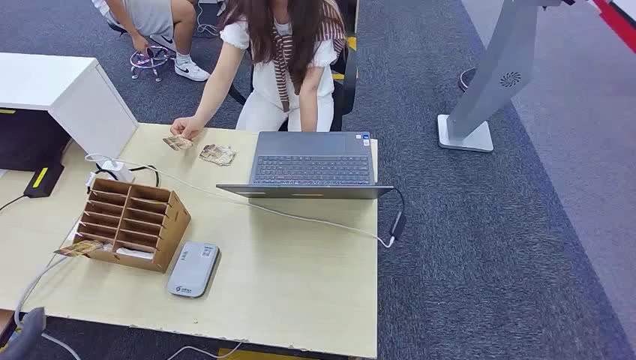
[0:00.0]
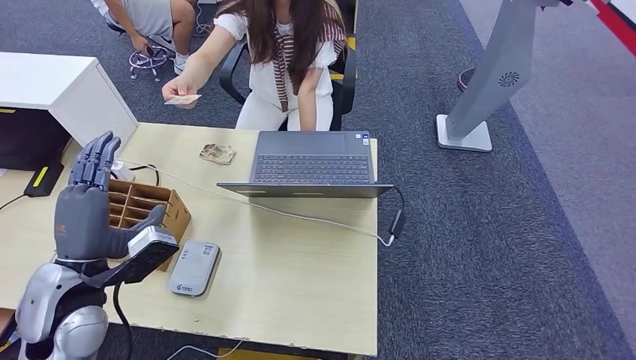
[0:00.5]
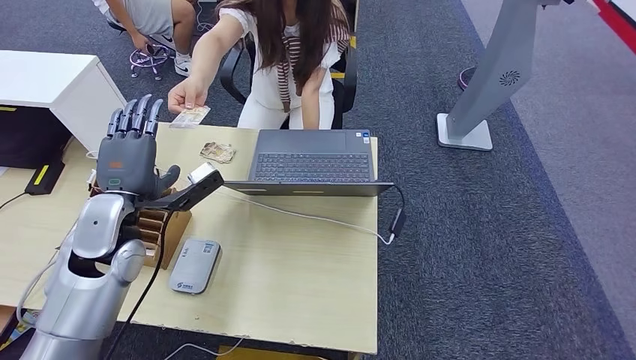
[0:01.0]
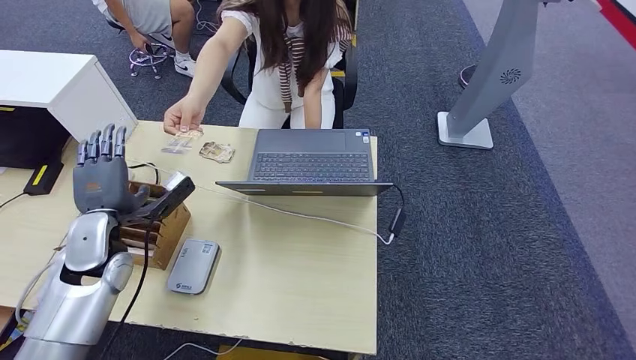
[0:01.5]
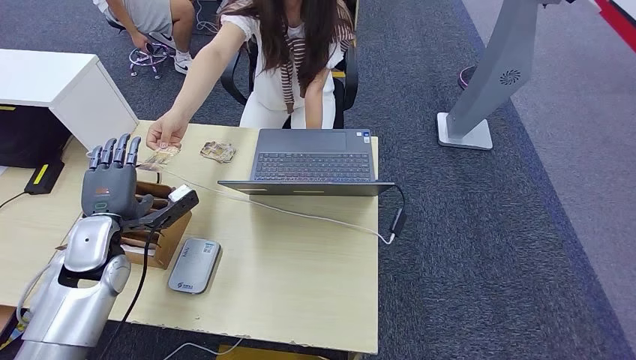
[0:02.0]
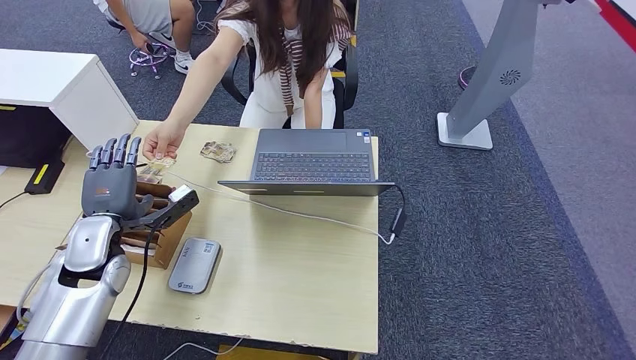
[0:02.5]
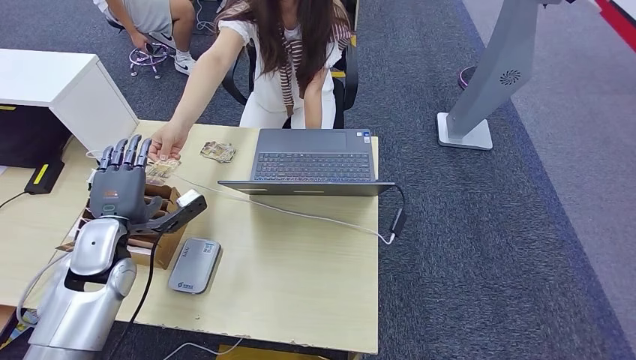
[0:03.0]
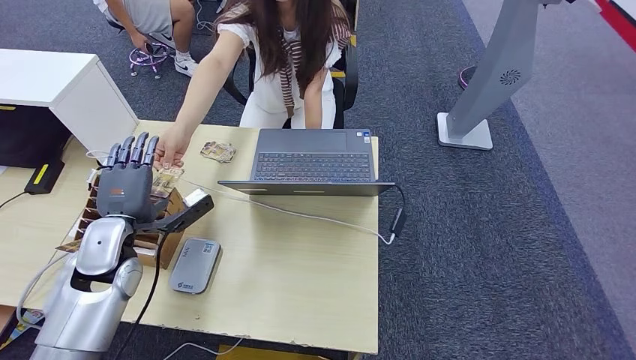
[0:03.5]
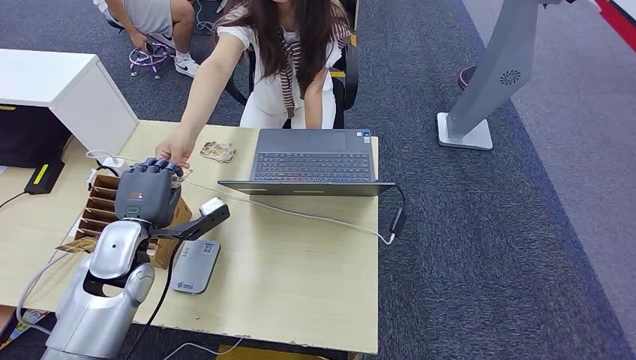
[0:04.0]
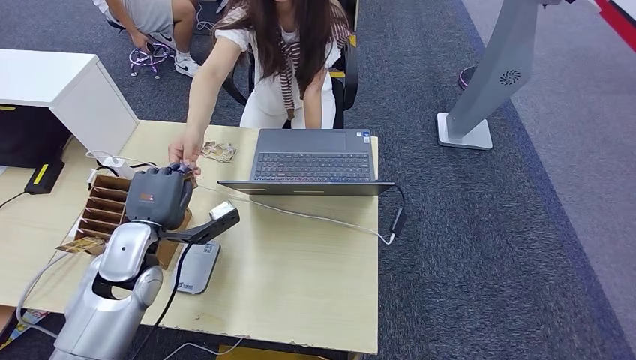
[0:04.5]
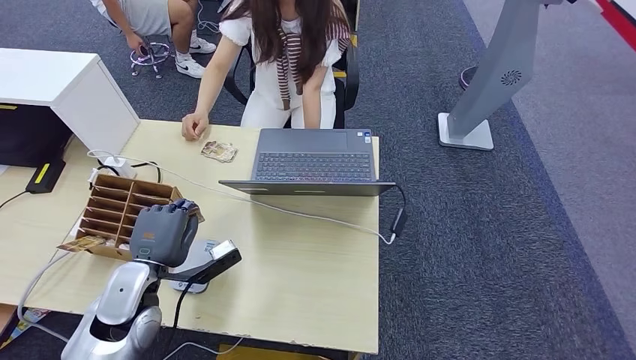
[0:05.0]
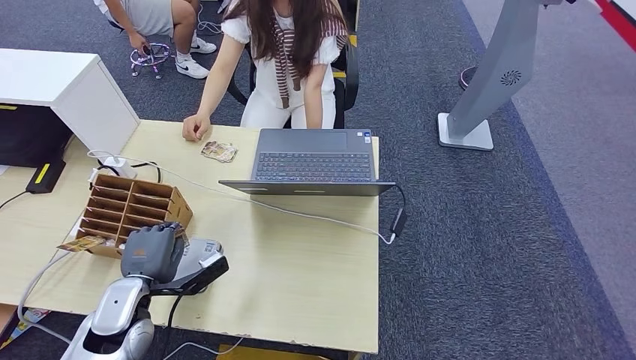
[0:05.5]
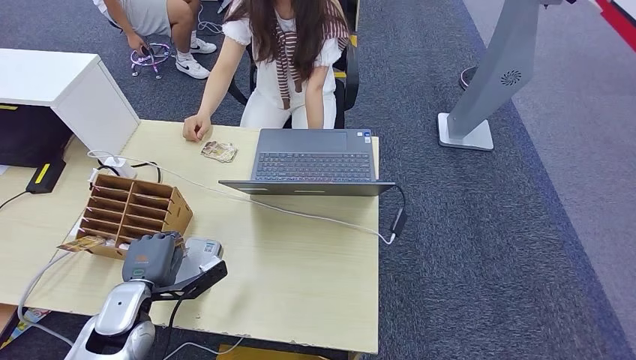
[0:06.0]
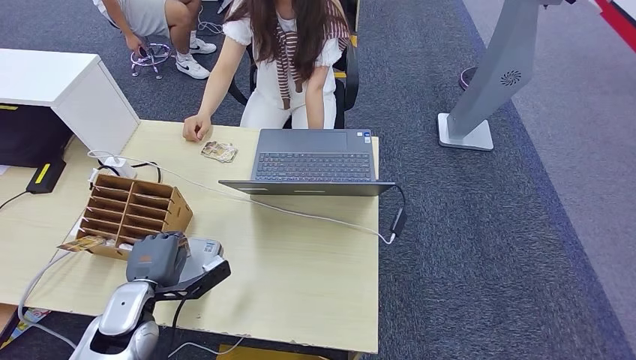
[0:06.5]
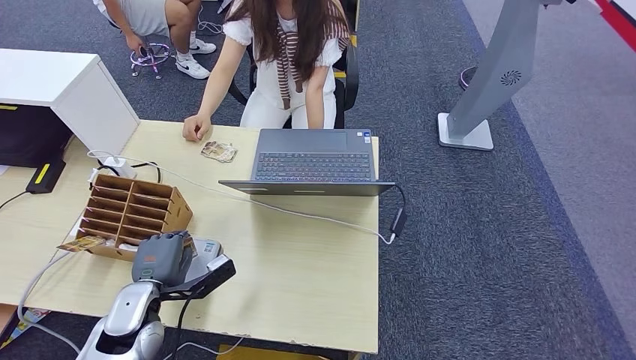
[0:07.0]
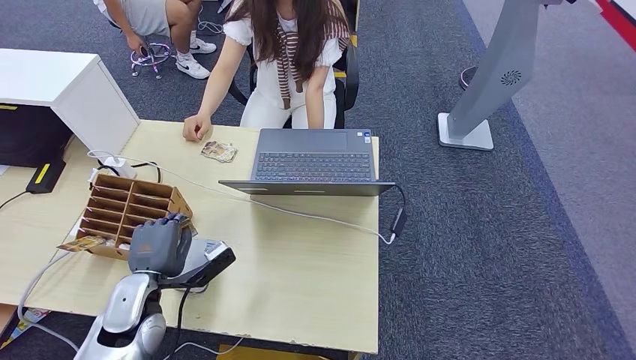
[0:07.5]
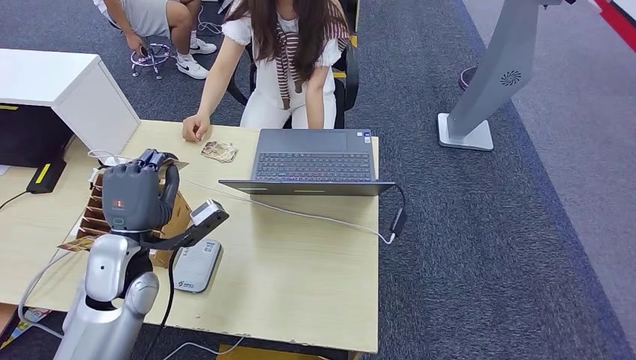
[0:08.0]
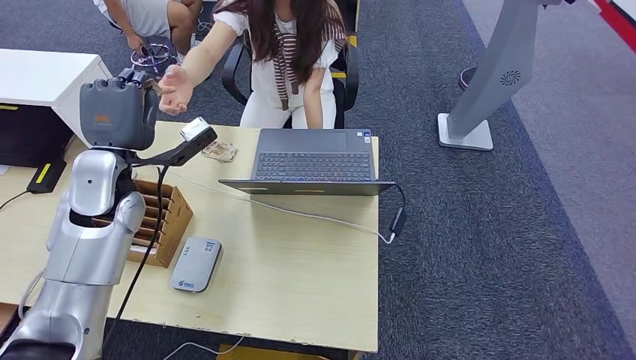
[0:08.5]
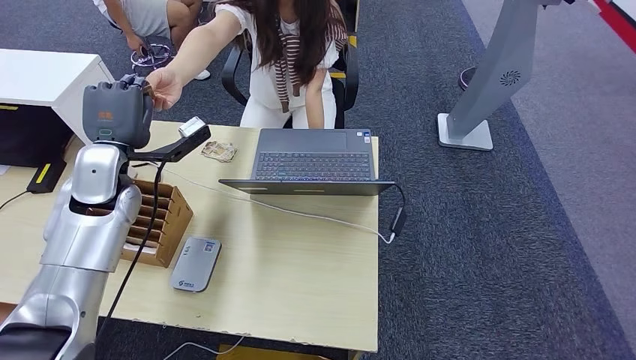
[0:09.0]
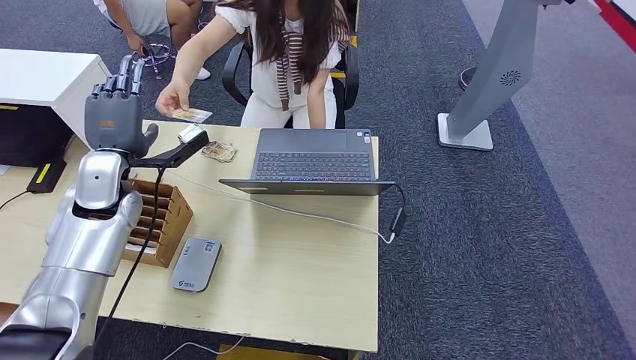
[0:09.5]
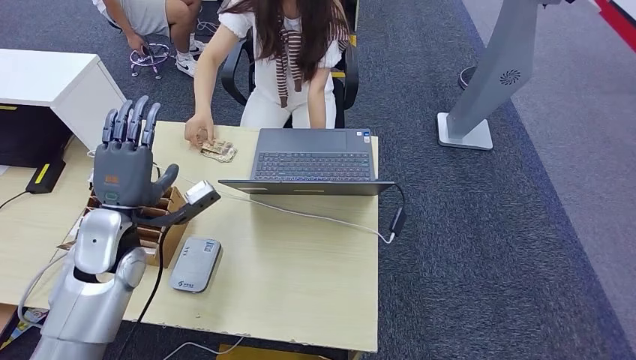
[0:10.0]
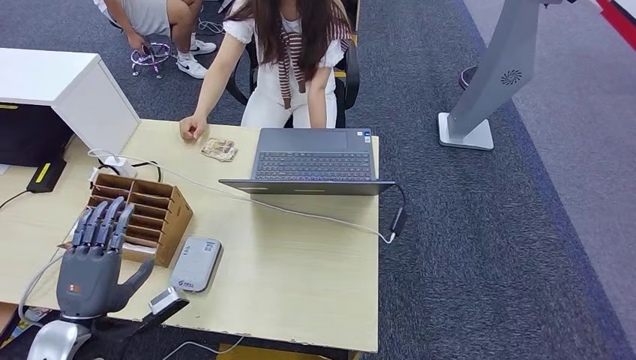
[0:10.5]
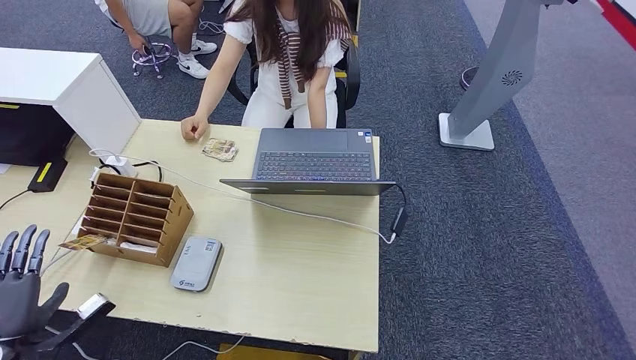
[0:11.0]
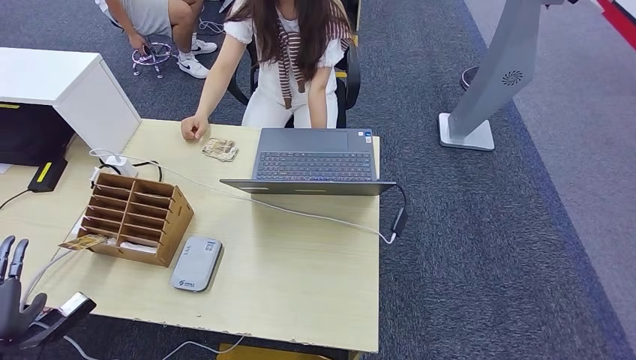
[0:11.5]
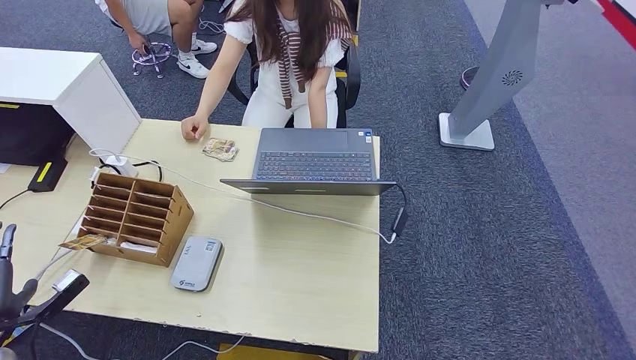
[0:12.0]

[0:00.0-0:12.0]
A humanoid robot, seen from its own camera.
Step, 0:00.0 to 0:05.0: Take the ID card from the person's hand.
Step, 0:05.5 to 0:06.5: Place the ID card on the card reader.
Step, 0:07.5 to 0:09.0: Hand the ID card to the person.
0:02.0 to 0:04.0: The left hand shifts approximately 5 cm to the right.
0:04.0 to 0:06.0: The left hand travels downward and backward by roughly 10 cm.
0:06.0 to 0:08.0: The left hand shifts roughly 10 cm upward.
0:08.0 to 0:10.0: The left hand moves about 10 cm forward and comes back.
0:10.0 to 0:12.0: The left hand goes roughly 30 cm to the left, backward and downward.

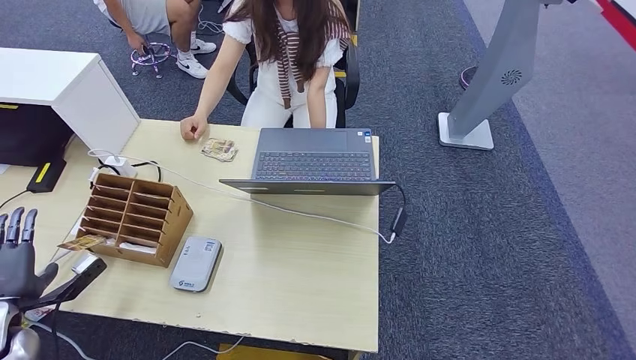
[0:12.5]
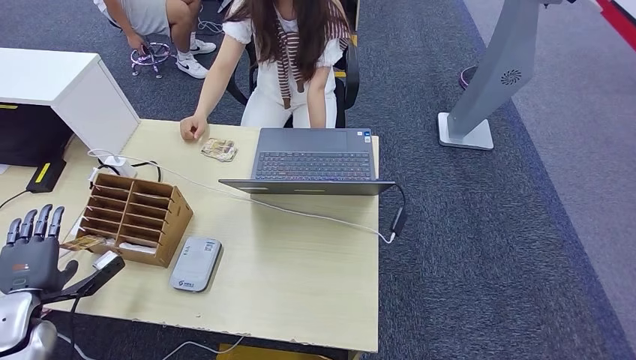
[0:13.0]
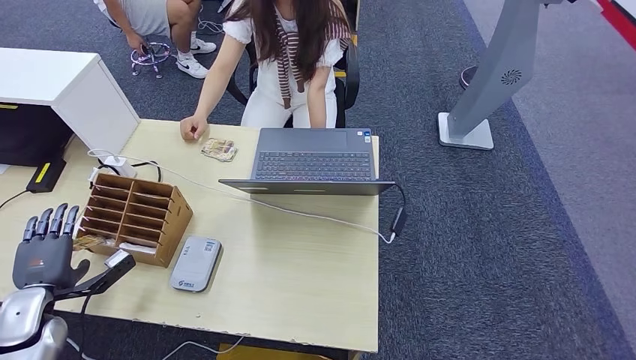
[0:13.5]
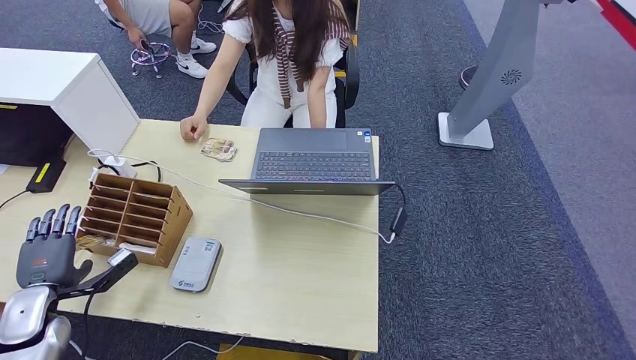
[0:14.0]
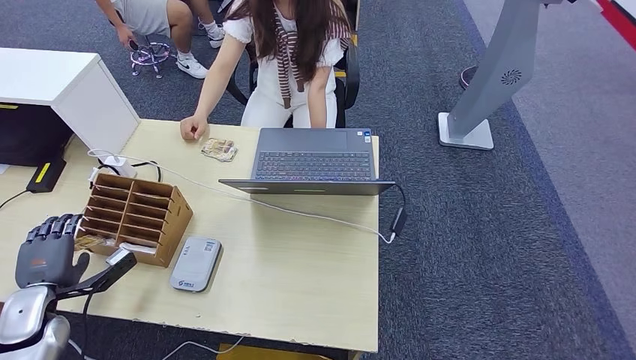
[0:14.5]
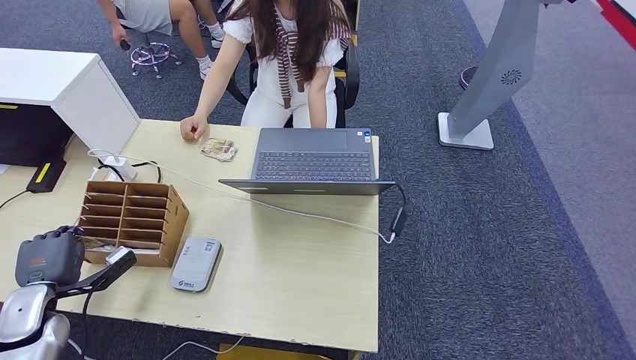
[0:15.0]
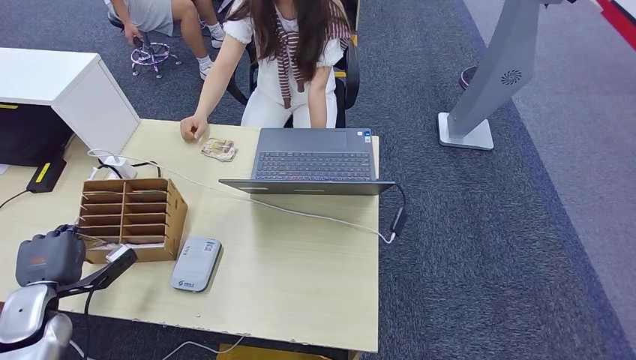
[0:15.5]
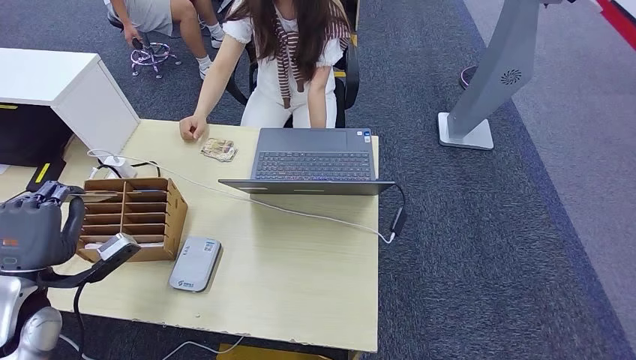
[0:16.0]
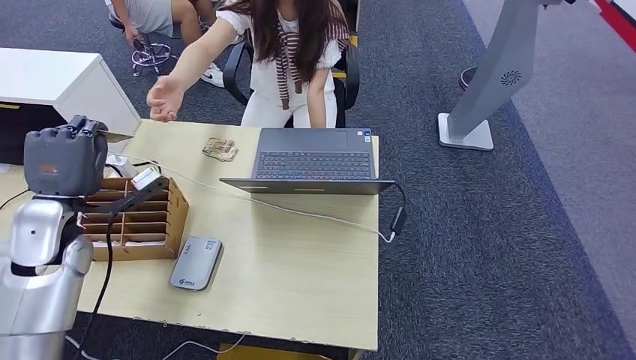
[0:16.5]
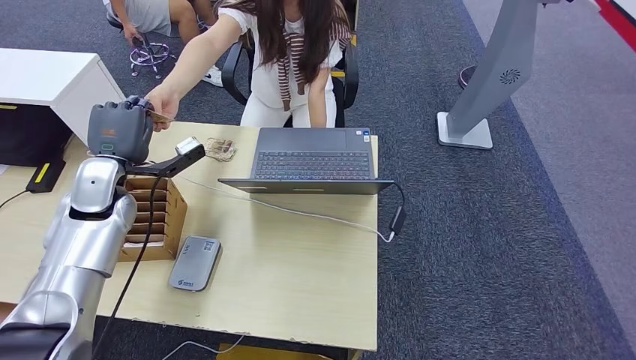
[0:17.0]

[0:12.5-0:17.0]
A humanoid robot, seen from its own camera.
Step, 0:12.5 to 0:15.5: Pick up the room key from the key card box.
Step, 0:16.0 to 0:17.0: Hand the room key to the person.
0:12.5 to 0:14.5: There are only small adjustments of the hands.
0:14.5 to 0:17.0: The left hand shifts about 25 cm forward, upward and to the right.
